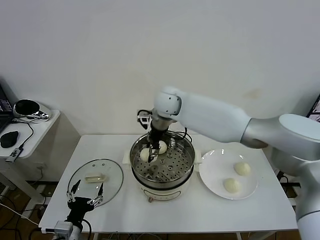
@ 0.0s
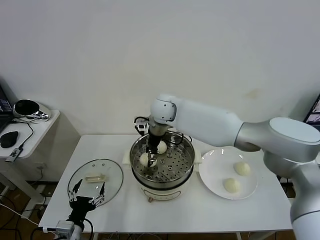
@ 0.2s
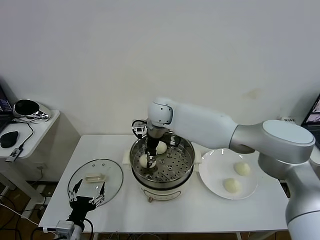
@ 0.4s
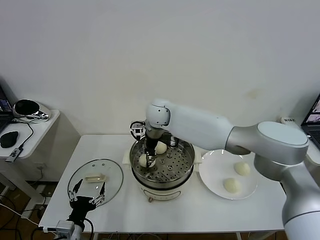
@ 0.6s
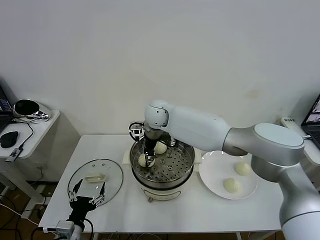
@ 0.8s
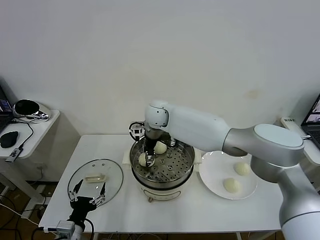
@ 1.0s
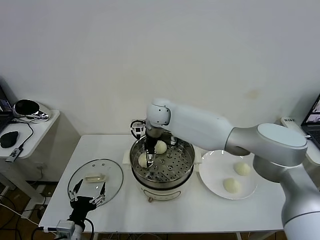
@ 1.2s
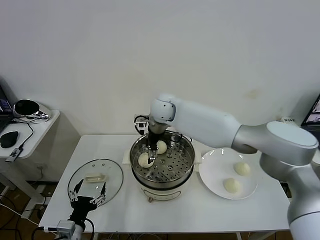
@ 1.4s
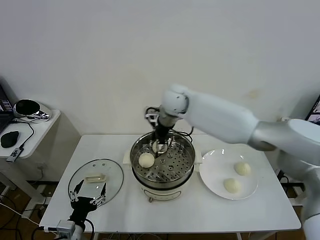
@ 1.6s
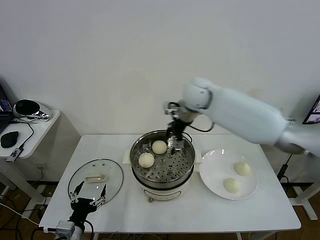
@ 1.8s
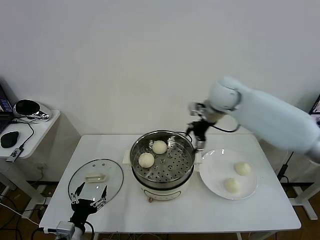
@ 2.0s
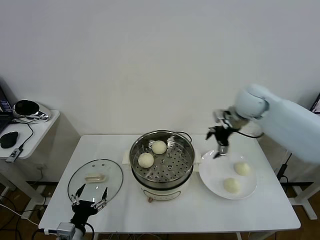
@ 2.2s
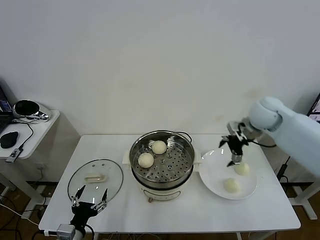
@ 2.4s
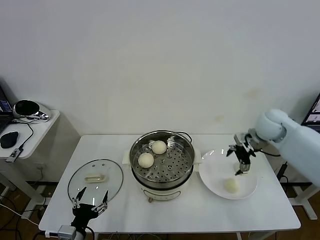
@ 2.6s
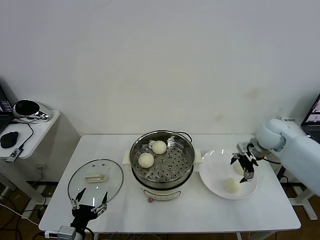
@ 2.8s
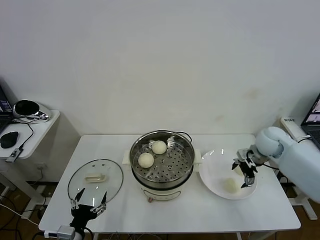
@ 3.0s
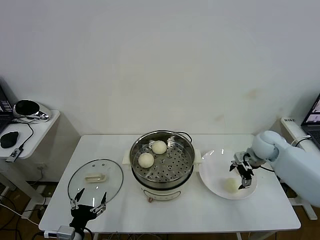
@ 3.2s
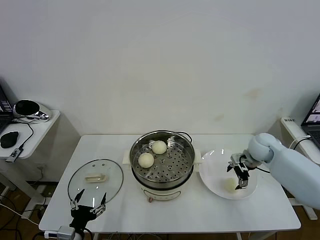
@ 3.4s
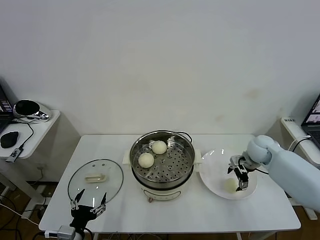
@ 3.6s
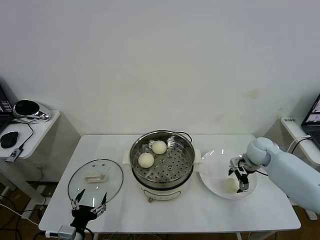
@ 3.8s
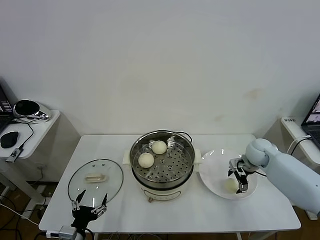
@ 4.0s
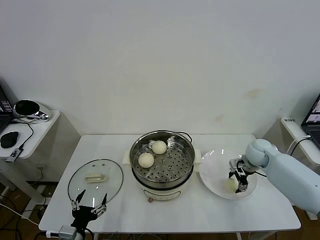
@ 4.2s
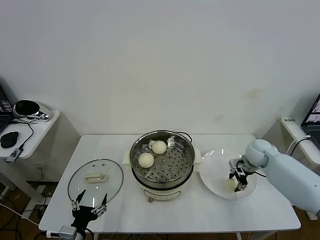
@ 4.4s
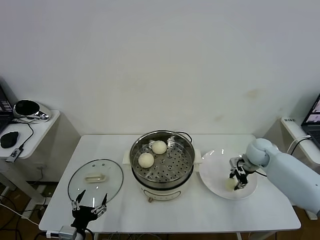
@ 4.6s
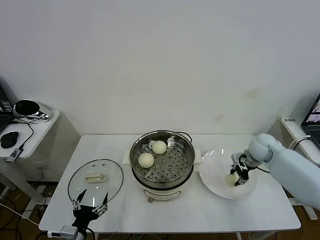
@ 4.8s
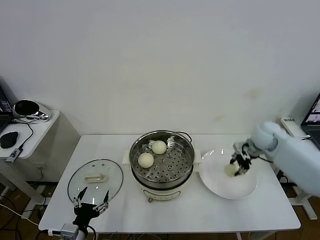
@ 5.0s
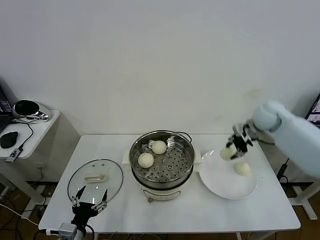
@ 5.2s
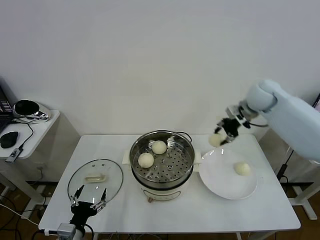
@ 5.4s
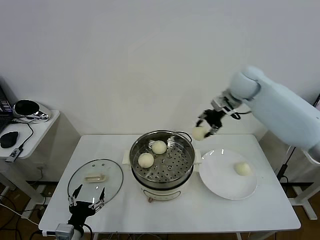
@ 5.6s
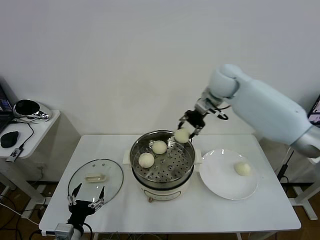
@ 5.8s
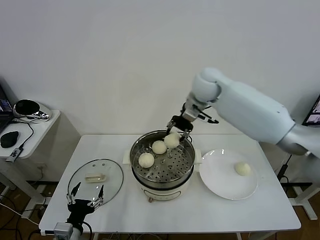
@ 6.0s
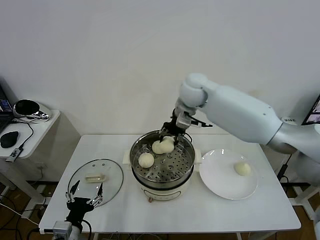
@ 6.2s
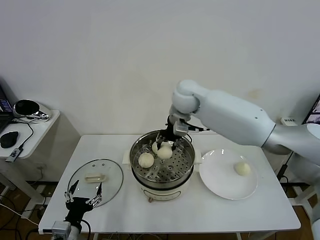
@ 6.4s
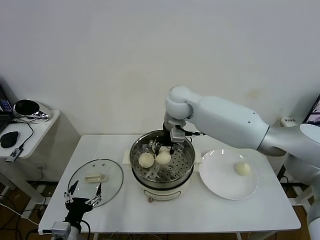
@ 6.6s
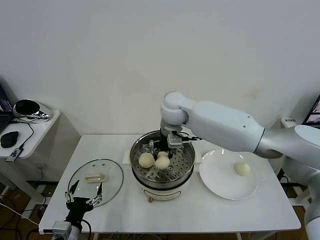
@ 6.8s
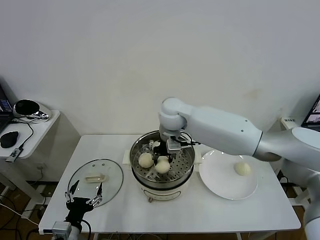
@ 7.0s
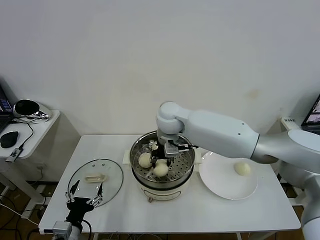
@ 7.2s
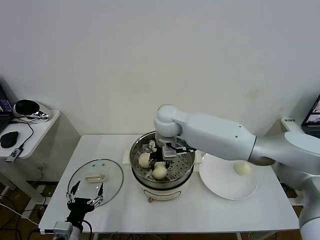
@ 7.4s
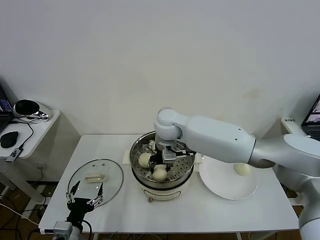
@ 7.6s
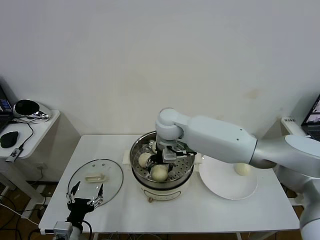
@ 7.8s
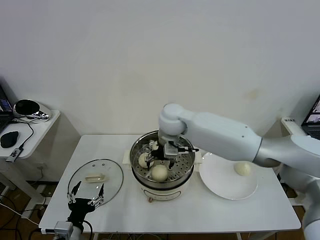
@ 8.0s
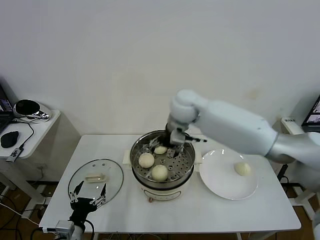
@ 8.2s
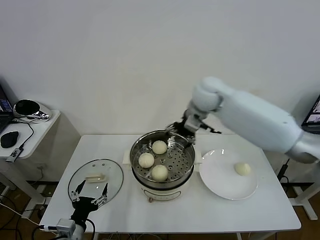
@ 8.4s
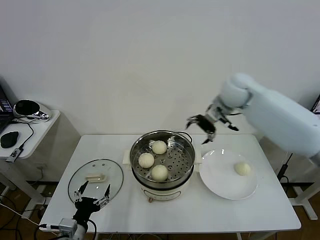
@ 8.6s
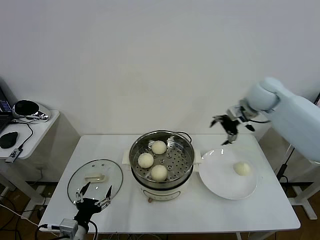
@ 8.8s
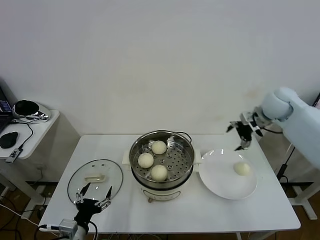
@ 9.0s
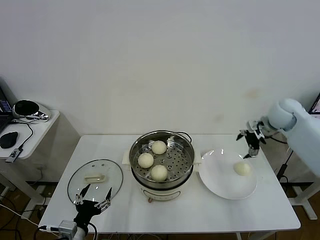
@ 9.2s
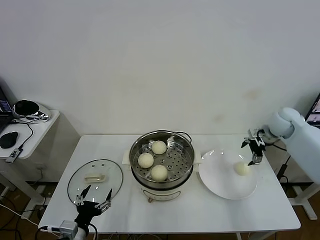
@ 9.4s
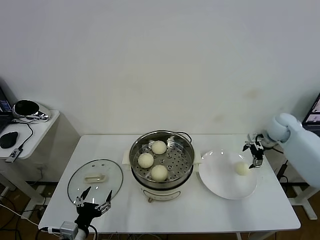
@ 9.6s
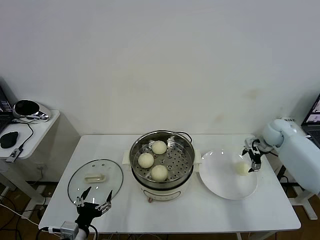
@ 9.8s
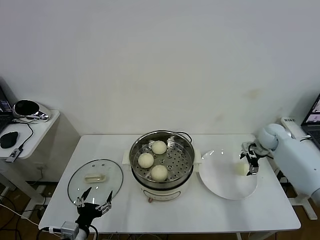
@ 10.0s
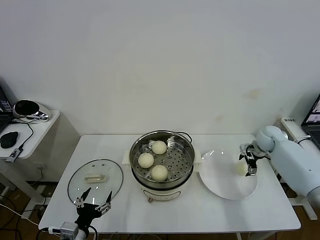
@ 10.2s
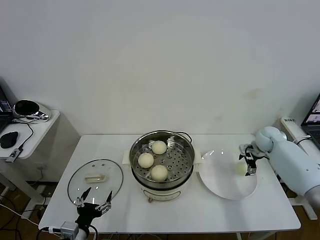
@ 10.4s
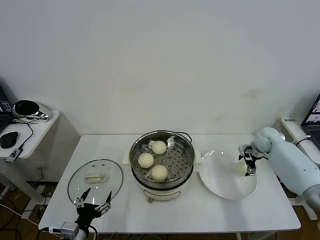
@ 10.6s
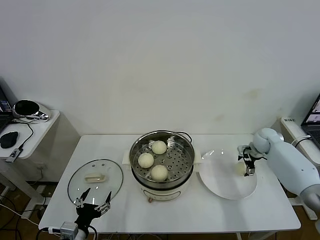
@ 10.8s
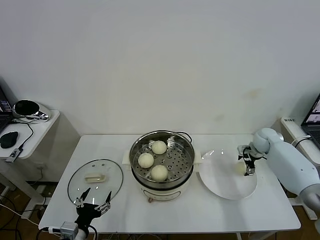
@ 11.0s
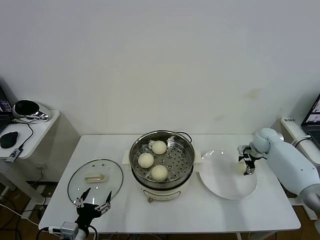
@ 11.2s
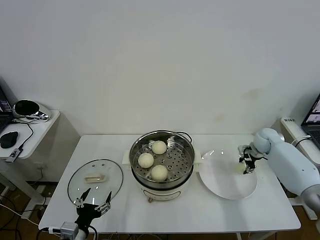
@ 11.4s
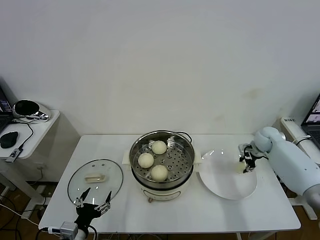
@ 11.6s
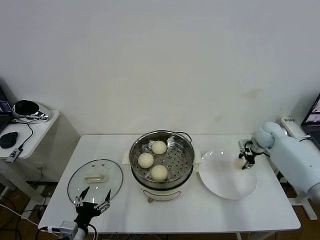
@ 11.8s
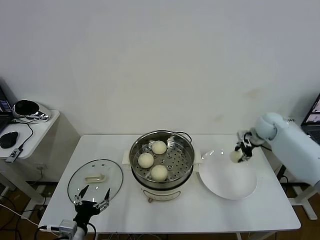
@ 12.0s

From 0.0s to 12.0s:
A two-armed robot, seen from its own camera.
Task of the whole recording: take steamed baozi put them in steamer then cover it.
Step, from 1.4s to 4.4s: Grasp the baozi in the plate with right gripper.
Step, from 4.6s to 8.0s: Place the baozi on the steamer with right gripper.
Step, from 8.4s to 11.4s: Grasp the baozi in the plate with right gripper.
From 0.0s to 1.6s: The right gripper opens its fingers.
From 1.6s to 3.0s: The right gripper goes about 35 cm to the right and downward.
From 3.0s to 4.4s: The right gripper shifts roughly 5 cm downward, and closes.
From 4.4s to 6.0s: The right gripper heads upward and to the left, covering roughly 35 cm.
From 6.0s to 7.6s: The right gripper shifts about 15 cm to the left, downward and backward.
From 7.6s to 9.0s: The right gripper travels to the right by about 35 cm, and opens its fingers.
From 9.0s to 10.4s: The right gripper goes roughly 20 cm downward.
From 10.4s to 12.0s: The right gripper goes roughly 5 cm upward, and closes its fingers.

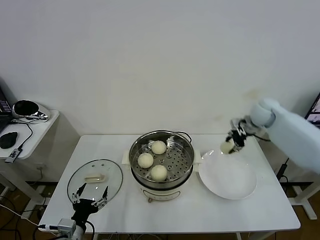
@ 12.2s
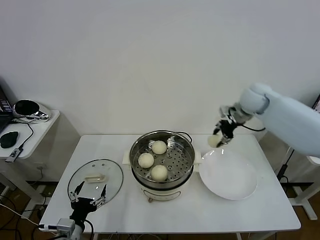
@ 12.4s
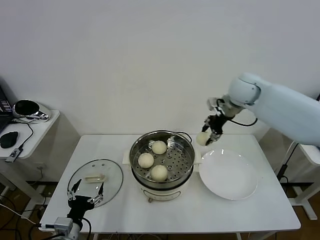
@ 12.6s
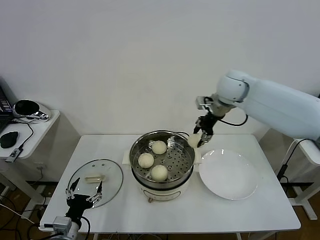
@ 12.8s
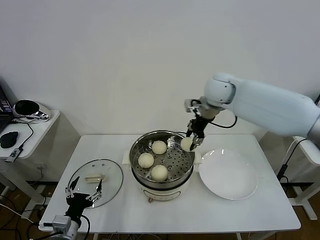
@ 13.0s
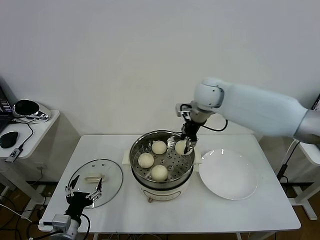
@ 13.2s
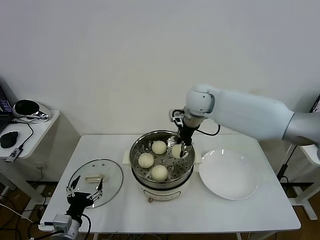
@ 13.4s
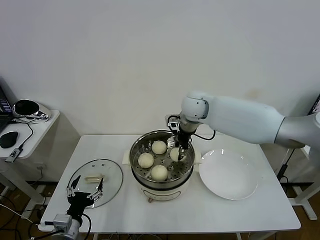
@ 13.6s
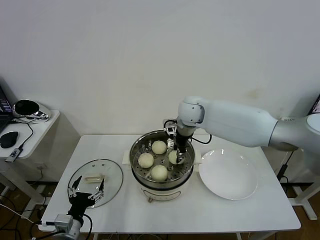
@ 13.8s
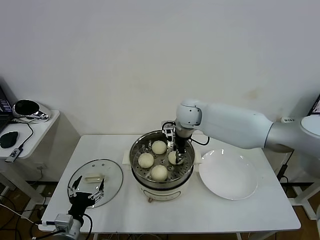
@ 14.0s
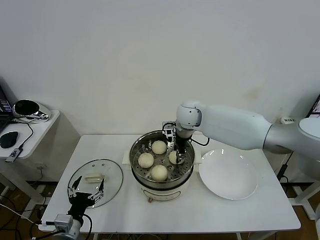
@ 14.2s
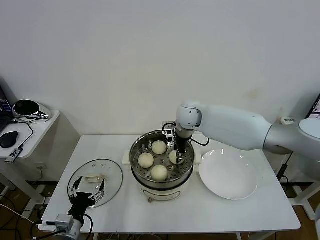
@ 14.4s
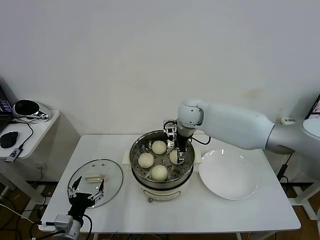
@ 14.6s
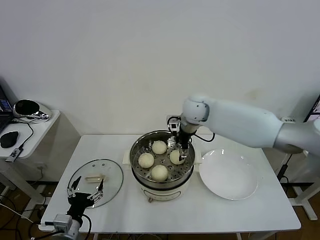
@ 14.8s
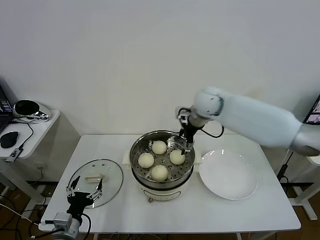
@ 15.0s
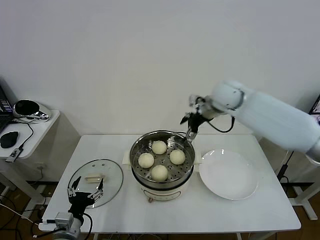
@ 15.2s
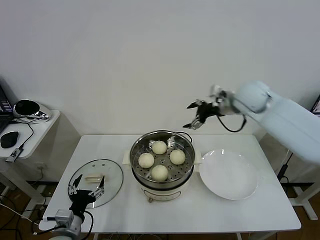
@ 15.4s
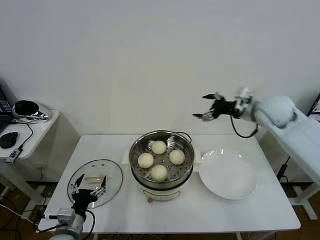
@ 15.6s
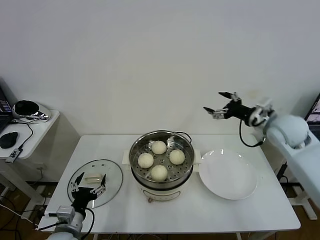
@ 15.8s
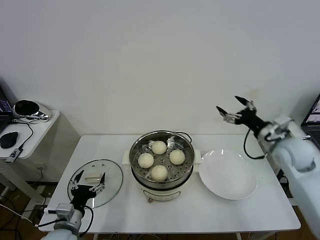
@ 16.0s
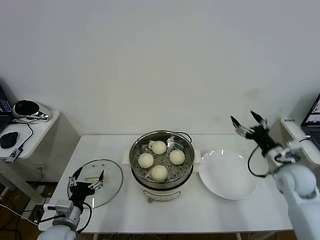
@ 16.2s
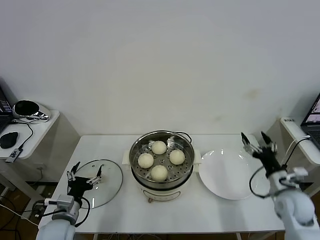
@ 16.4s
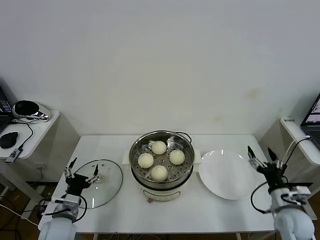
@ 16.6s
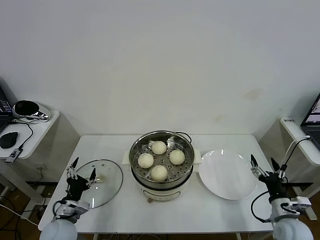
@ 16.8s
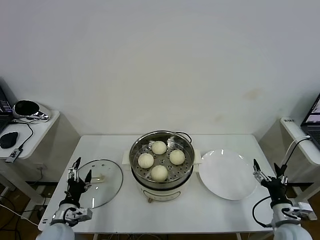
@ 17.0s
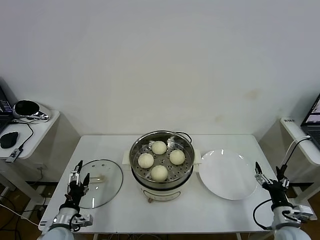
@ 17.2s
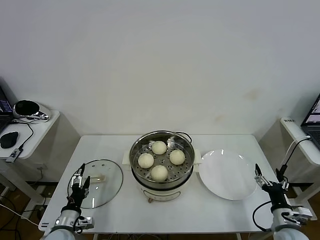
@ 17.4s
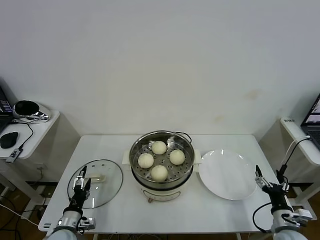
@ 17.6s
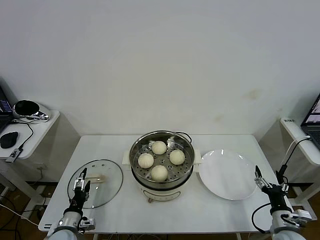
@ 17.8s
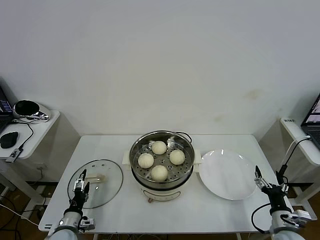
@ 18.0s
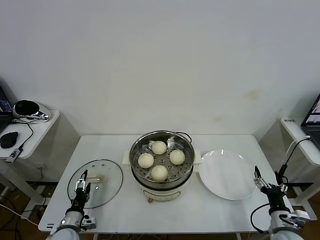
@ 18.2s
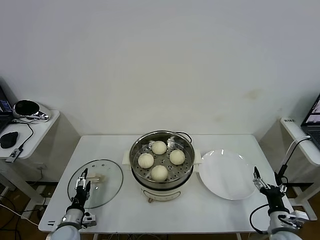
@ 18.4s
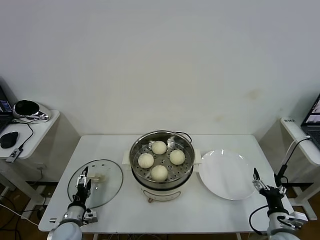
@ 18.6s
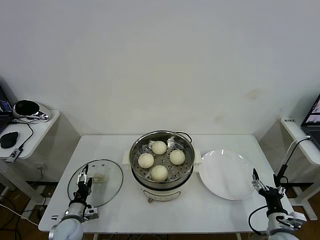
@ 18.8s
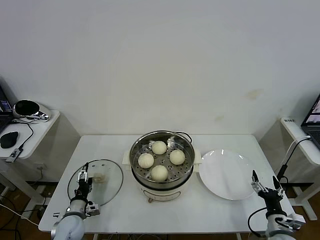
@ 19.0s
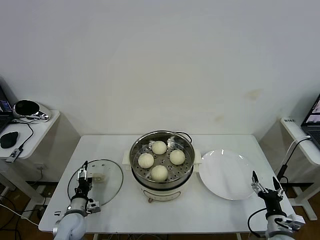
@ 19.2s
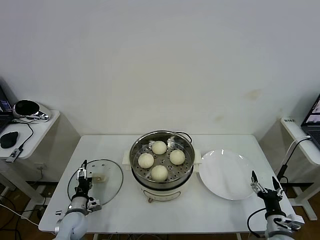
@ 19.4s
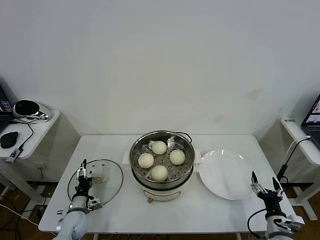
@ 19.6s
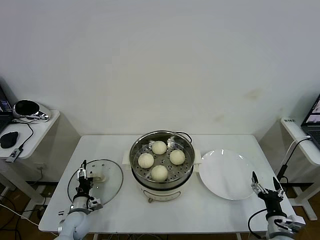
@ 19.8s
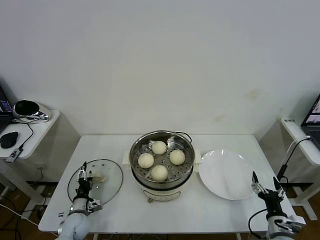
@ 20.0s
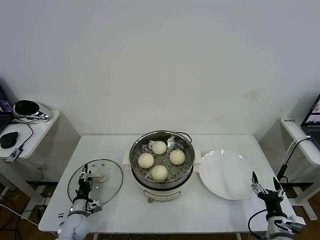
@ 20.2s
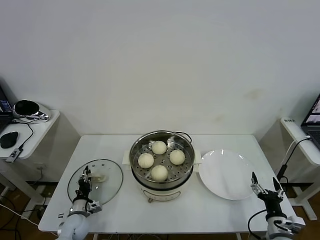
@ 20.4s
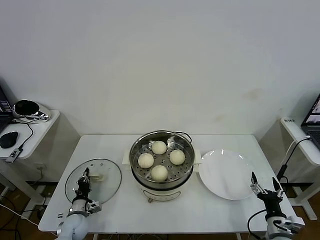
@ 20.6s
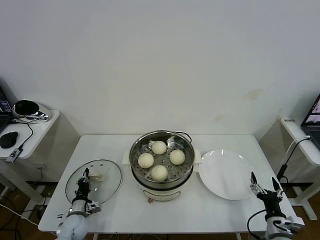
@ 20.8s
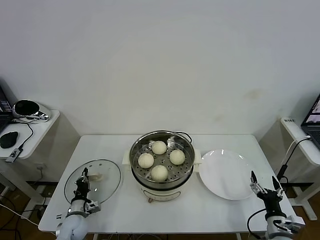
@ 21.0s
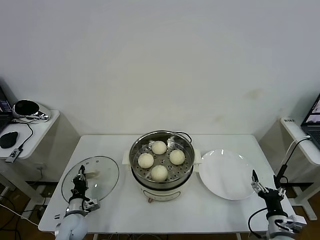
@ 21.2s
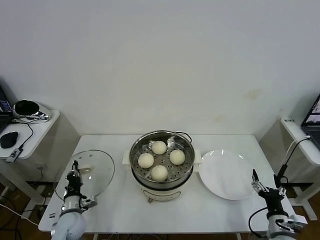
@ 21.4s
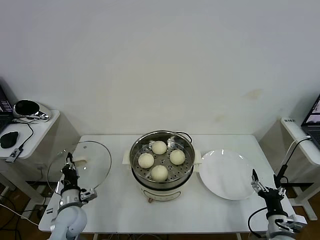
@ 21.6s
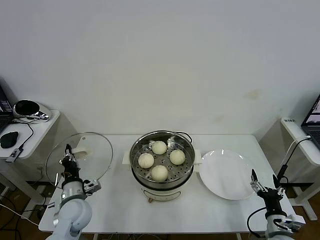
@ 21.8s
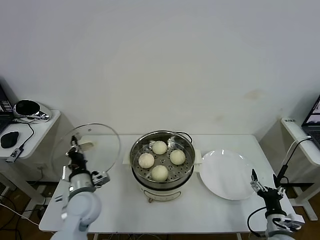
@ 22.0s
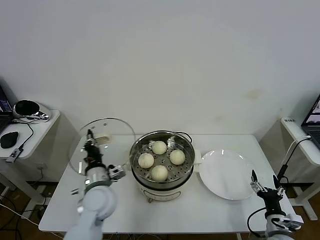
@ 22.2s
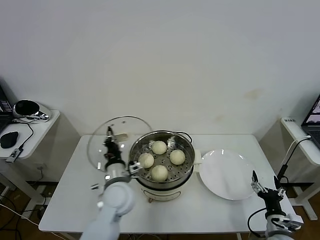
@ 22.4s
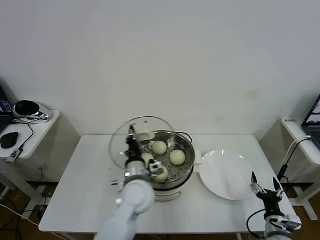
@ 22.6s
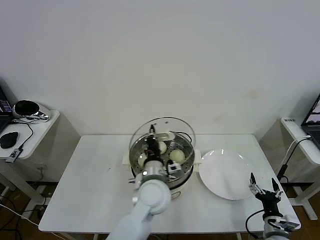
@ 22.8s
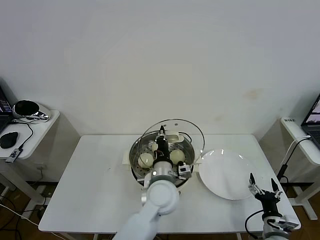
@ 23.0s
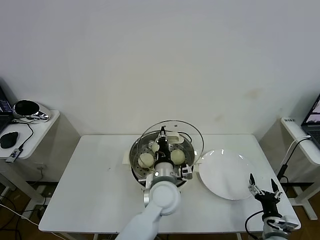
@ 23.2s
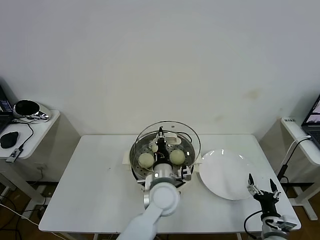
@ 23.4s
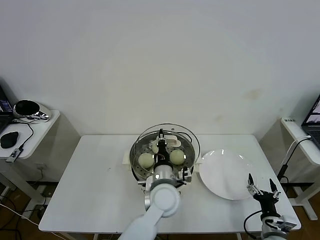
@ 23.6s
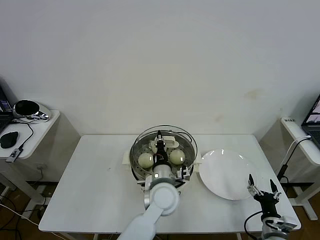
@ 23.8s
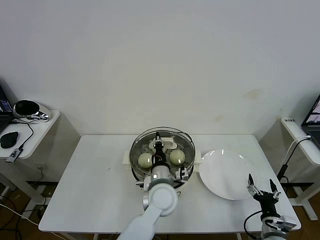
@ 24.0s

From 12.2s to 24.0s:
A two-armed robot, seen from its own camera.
Task of the whole recording: take steamed baozi put them in steamer then cover it.
Step, from 12.2s to 14.8s: Place the baozi on the steamer with right gripper.
Step, from 15.2s to 21.0s: Grasp the pot lid with left gripper.
From 12.2s to 13.6s: The right gripper is displaced to the left by approximately 25 cm.
From 13.6s to 15.2s: The right gripper shifts approximately 10 cm to the right, and opens.
From 15.2s to 16.6s: The left gripper travels forward by approximately 5 cm. The right gripper heads backward, downward and to the right, covering about 40 cm.
From 16.6s to 18.2s: The left gripper moves downward, roughly 10 cm. The right gripper travels downward and backward by about 10 cm.
From 18.2s to 19.6s: The left gripper moves forward, about 5 cm.
From 19.6s to 21.0s: The left gripper closes its fingers.
From 21.0s to 22.6s: The left gripper travels to the right and upward by some 35 cm.
From 22.6s to 24.0s: The left gripper travels to the right by about 10 cm.
